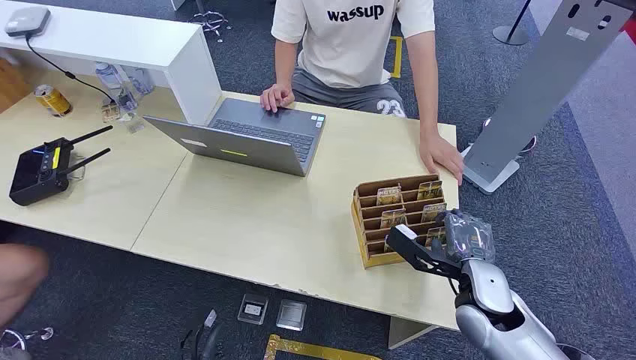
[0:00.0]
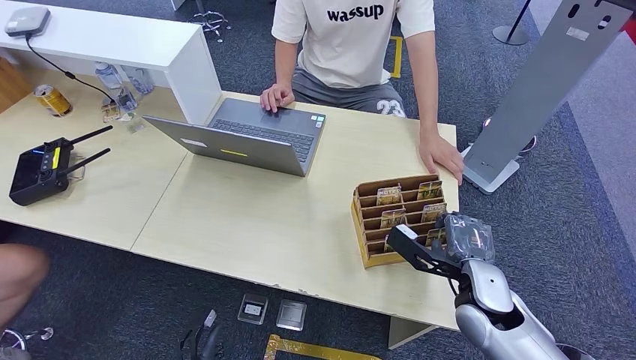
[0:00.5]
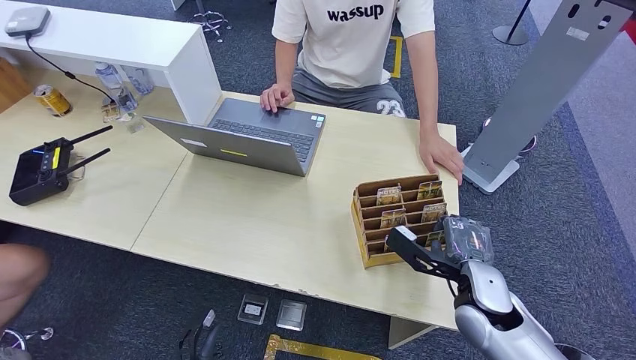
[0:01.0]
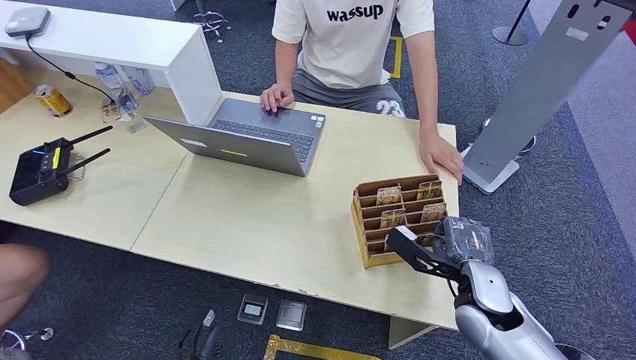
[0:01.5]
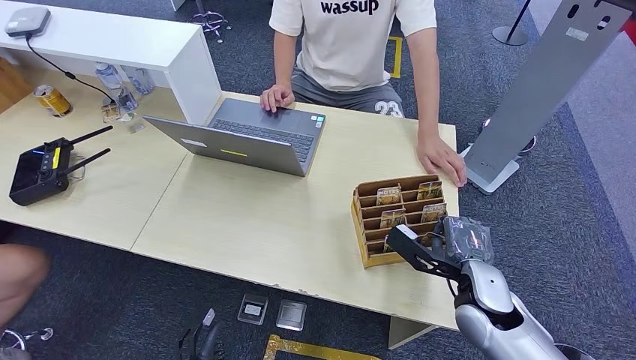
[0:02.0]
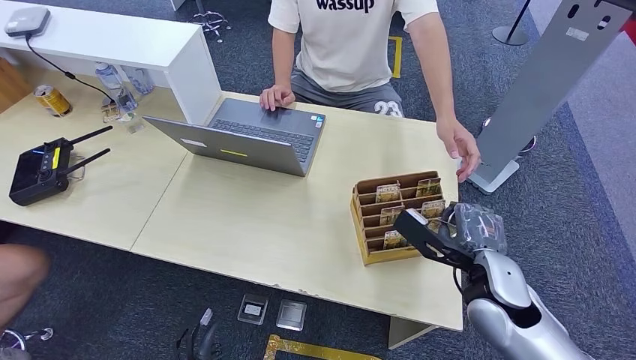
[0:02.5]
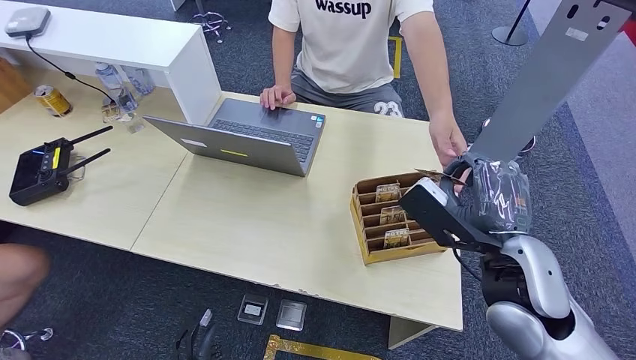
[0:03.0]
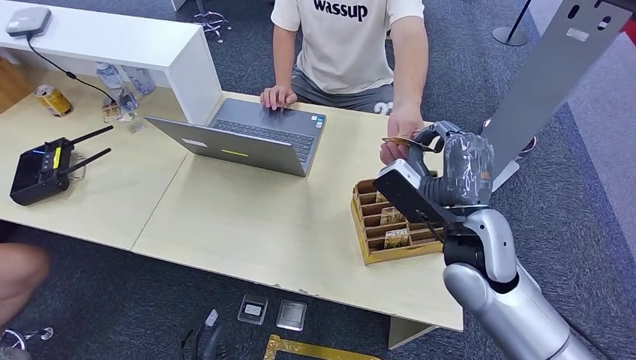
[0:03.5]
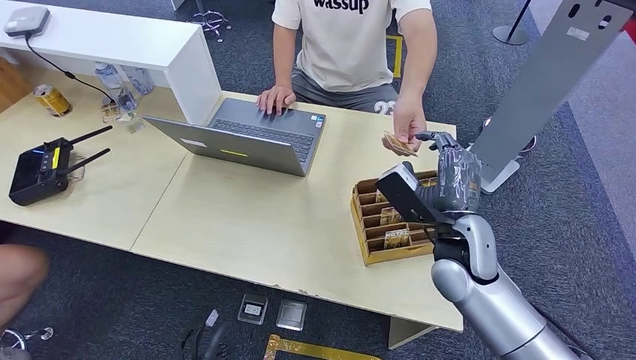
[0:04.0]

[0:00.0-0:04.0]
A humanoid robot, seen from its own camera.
Step, 0:00.0 to 0:02.5: Pick up the key card from the card box.
Step, 0:03.0 to 0:04.0: Hand the key card to the target.
0:02.0 to 0:04.0: The right hand shifts some 10 cm upward, to the left and forward.

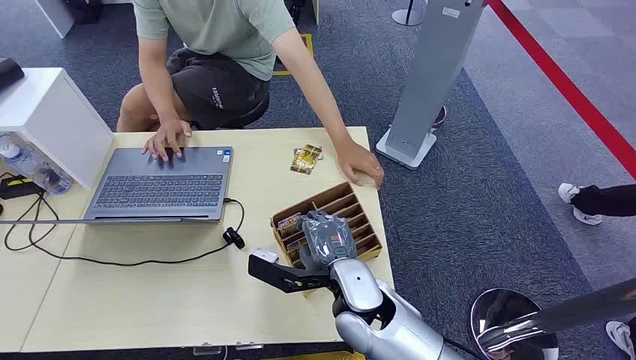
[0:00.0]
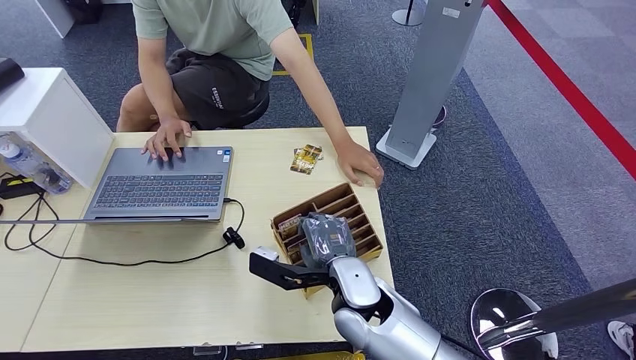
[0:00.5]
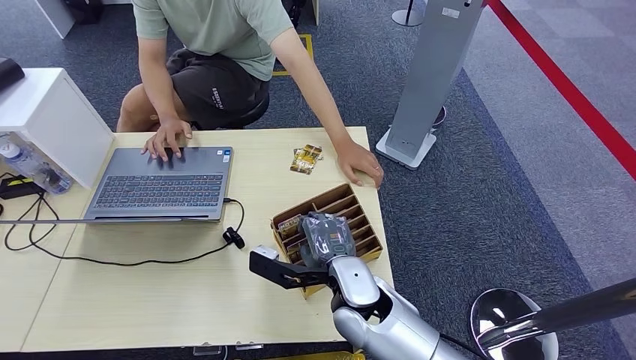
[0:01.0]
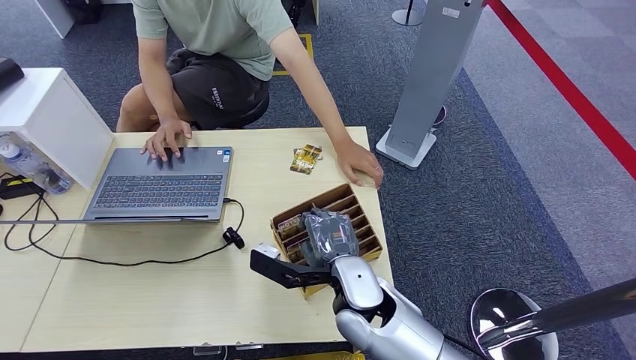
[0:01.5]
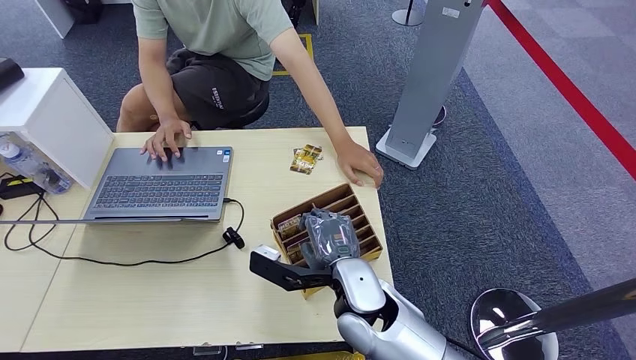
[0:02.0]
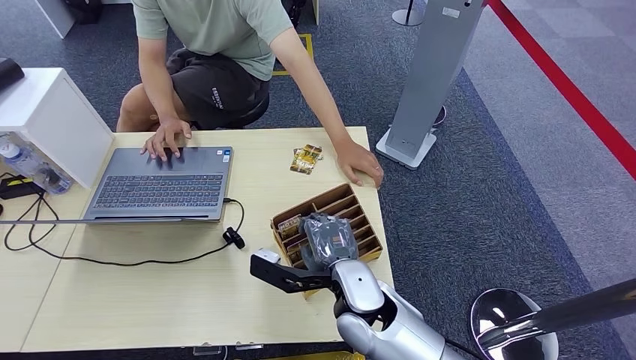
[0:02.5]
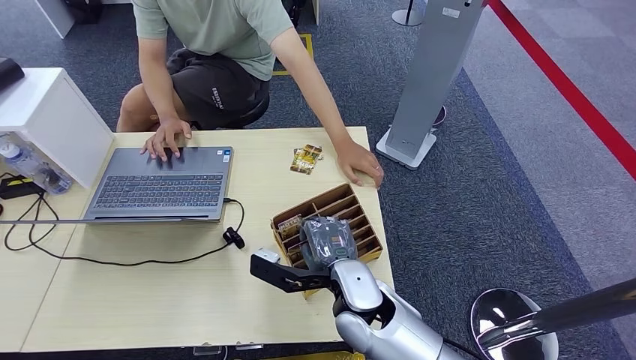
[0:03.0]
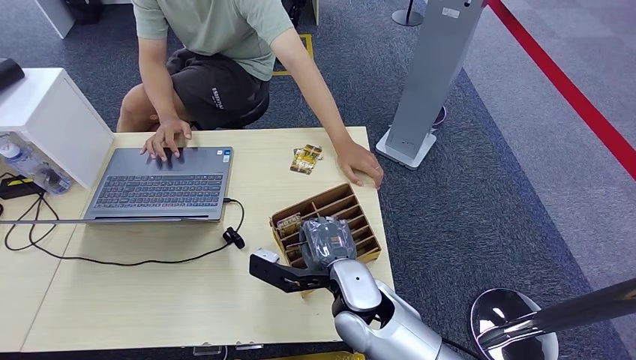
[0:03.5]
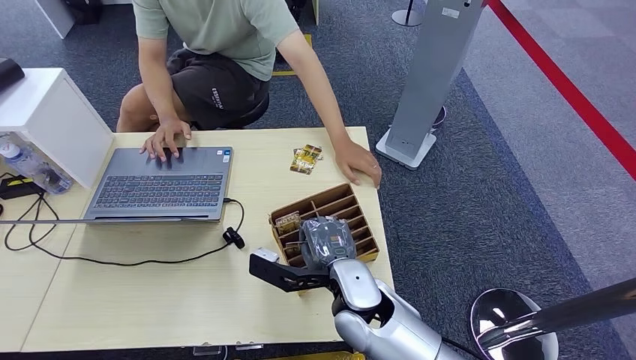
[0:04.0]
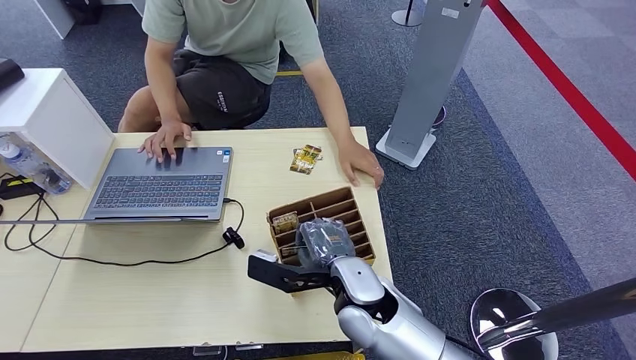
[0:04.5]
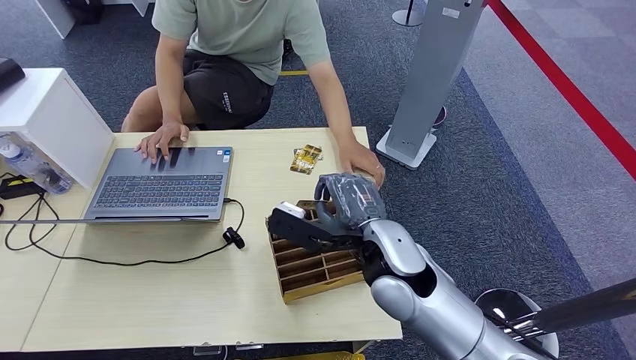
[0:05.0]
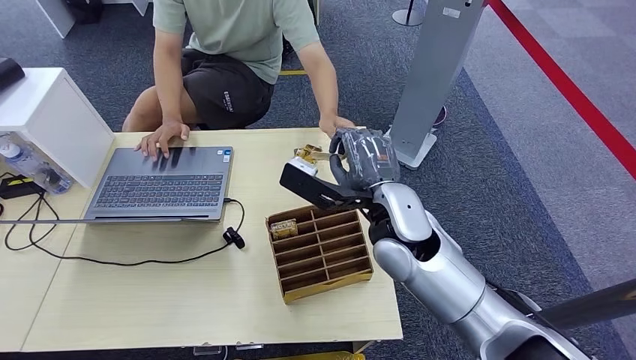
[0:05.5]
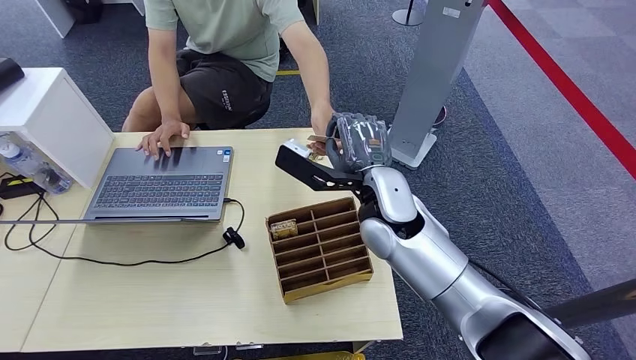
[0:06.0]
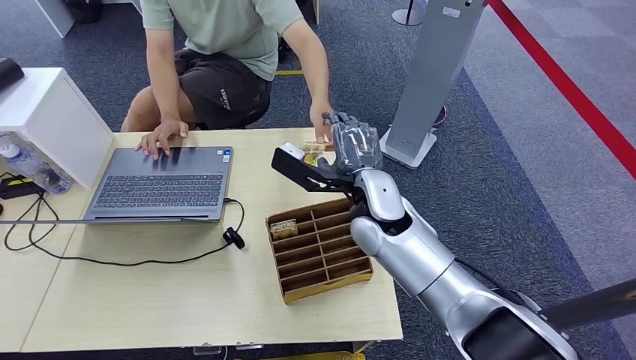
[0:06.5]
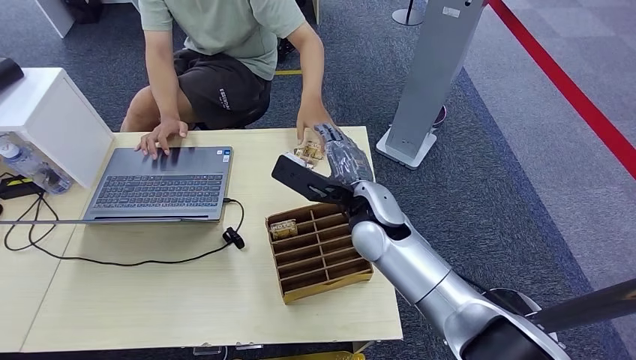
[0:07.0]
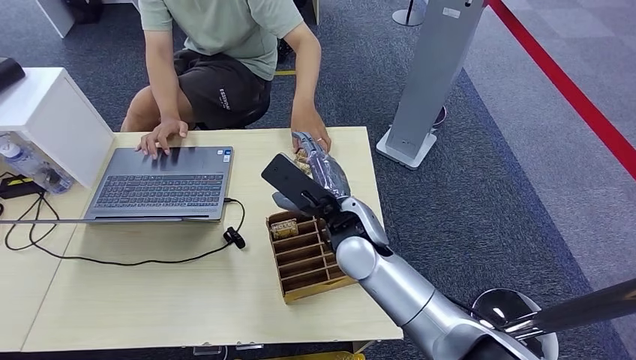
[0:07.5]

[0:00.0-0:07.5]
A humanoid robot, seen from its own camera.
Step, 0:00.0 to 0:05.0: Pick up the key card from the card box.
Step, 0:05.5 to 0:07.0: Hand the key card to the target.
0:02.0 to 0:04.0: Neither hand changes place.
0:04.0 to 0:05.5: The right hand moves upward, forward and to the right, some 15 cm.
0:05.5 to 0:07.5: The right hand shifts approximately 5 cm to the left.

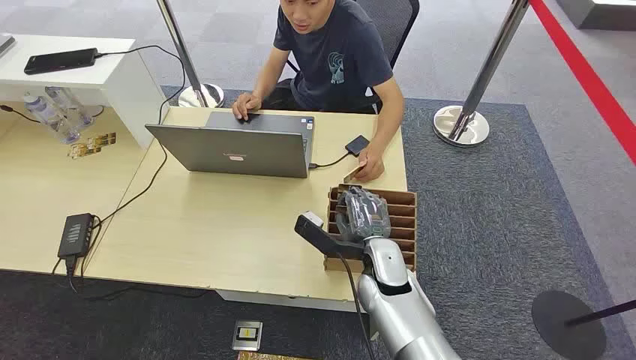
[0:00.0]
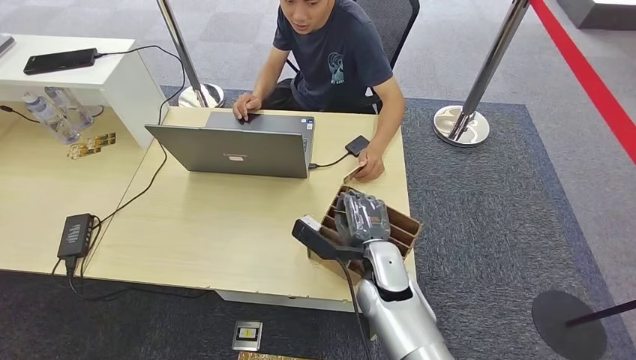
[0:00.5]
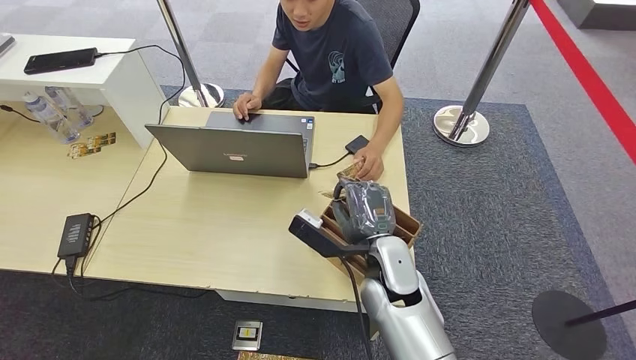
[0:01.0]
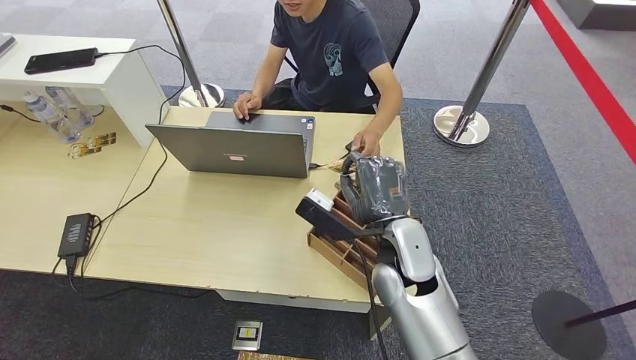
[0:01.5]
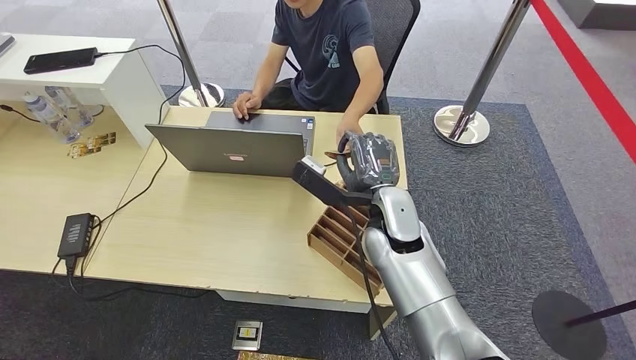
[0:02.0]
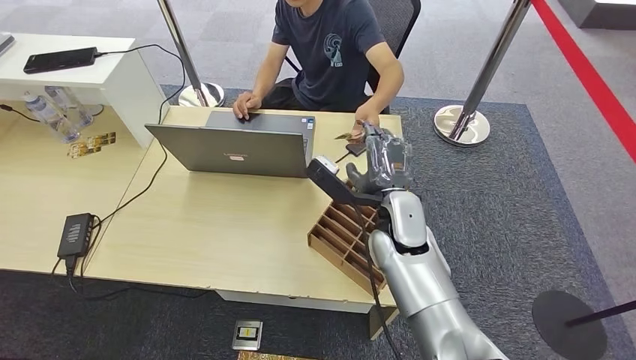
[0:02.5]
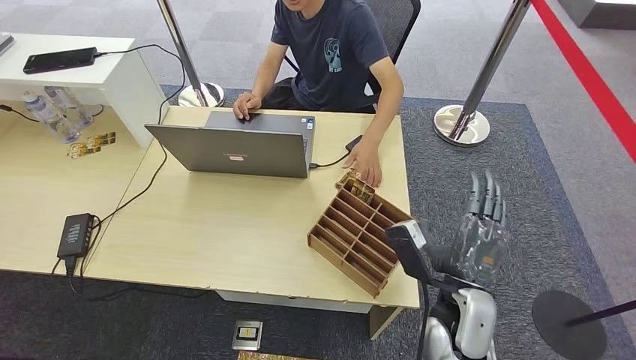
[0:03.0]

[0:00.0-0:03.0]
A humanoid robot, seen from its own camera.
Step, 0:00.0 to 0:01.5: Pick up the key card from the card box.
Step, 0:02.0 to 0:03.0: Hand the key card to the target.
0:01.5 to 0:03.0: The right hand moves to the right, backward and downward, about 10 cm.
